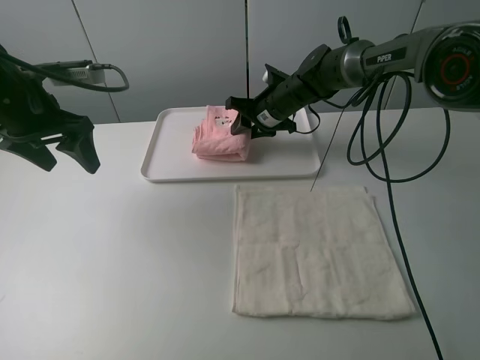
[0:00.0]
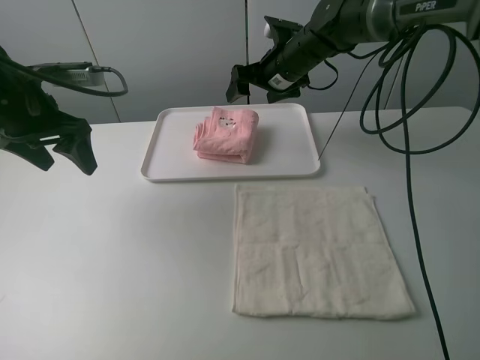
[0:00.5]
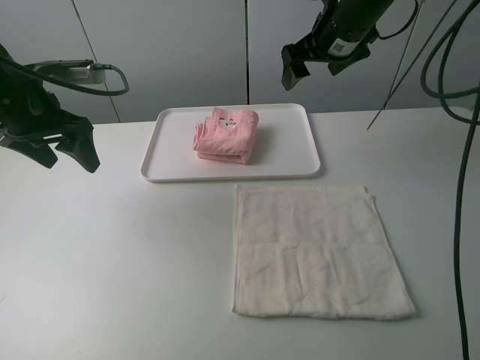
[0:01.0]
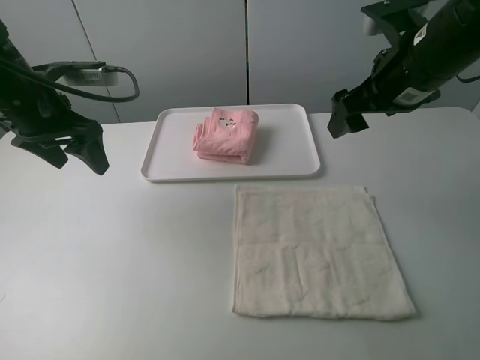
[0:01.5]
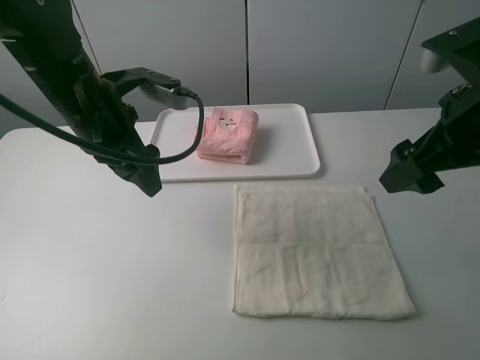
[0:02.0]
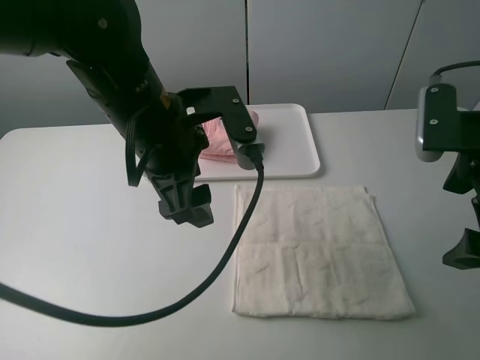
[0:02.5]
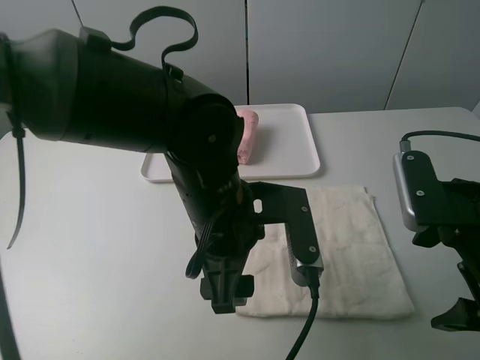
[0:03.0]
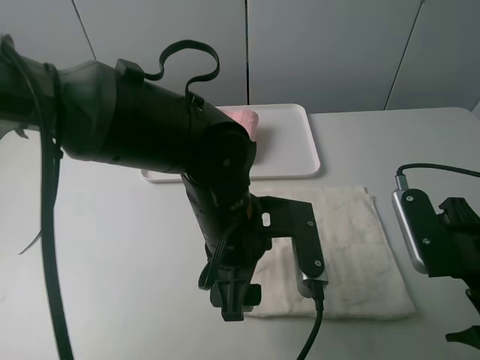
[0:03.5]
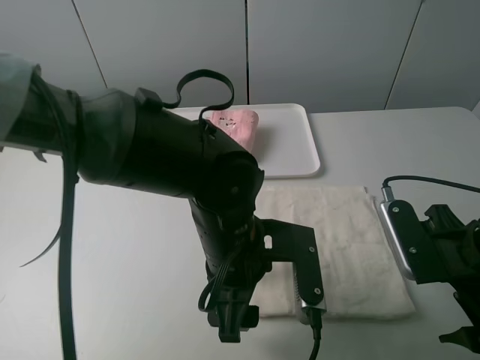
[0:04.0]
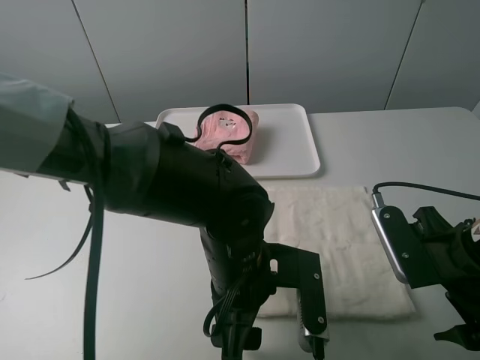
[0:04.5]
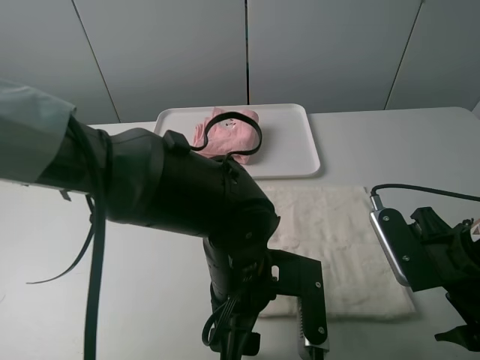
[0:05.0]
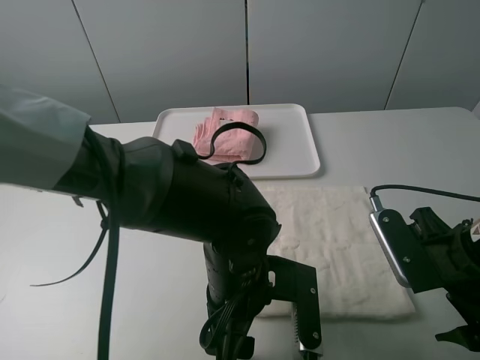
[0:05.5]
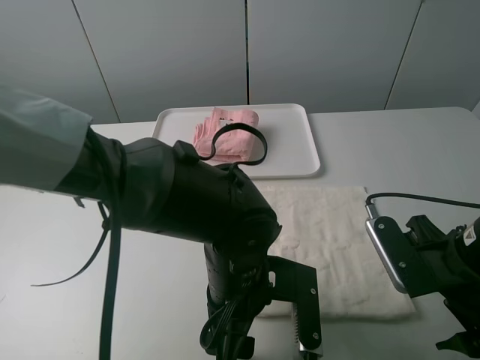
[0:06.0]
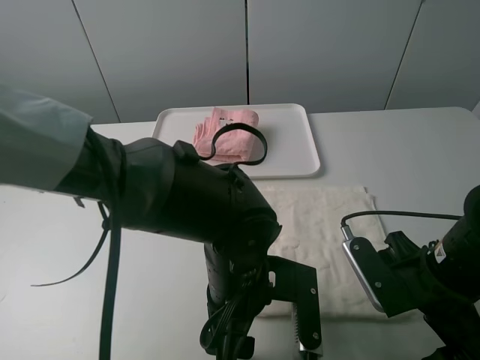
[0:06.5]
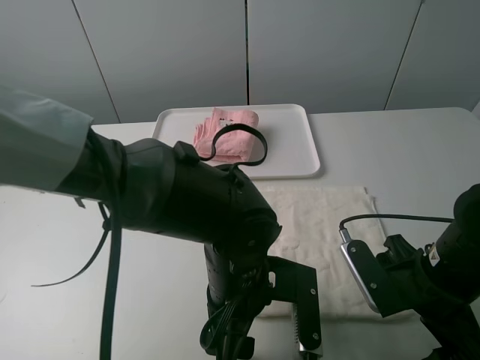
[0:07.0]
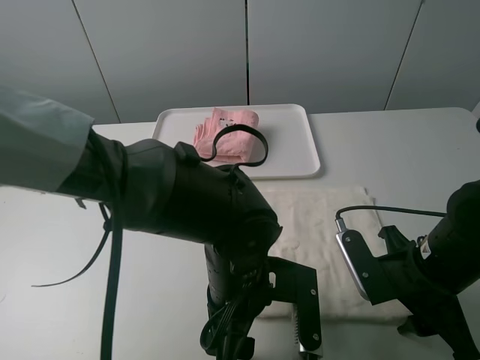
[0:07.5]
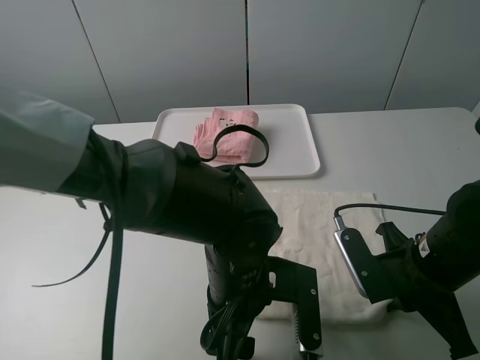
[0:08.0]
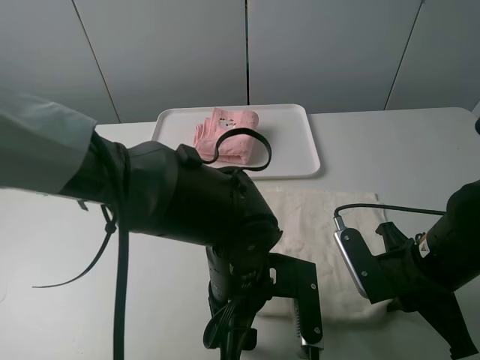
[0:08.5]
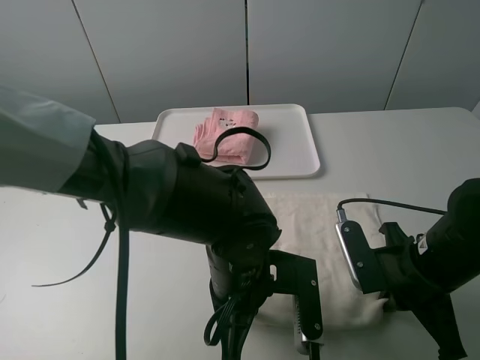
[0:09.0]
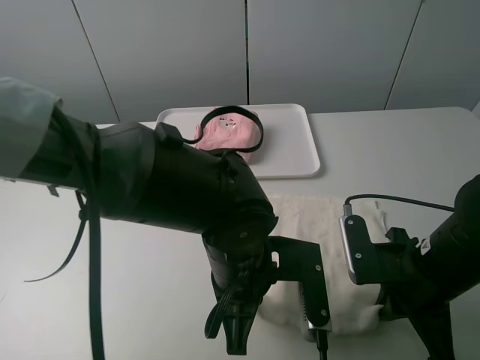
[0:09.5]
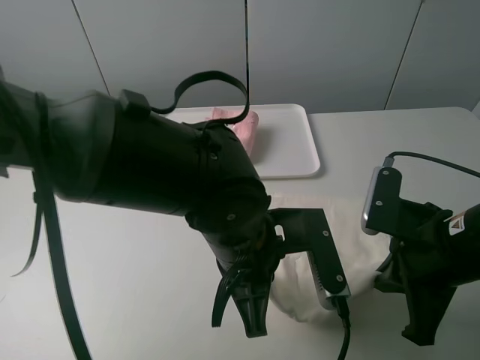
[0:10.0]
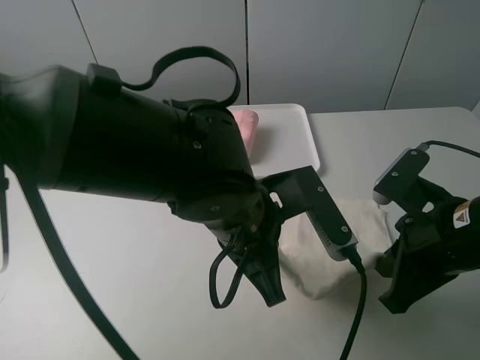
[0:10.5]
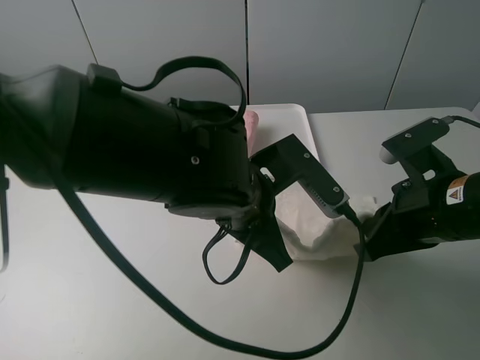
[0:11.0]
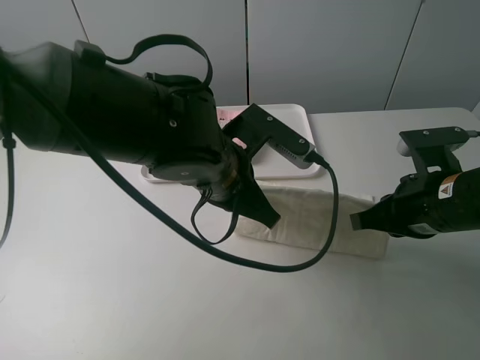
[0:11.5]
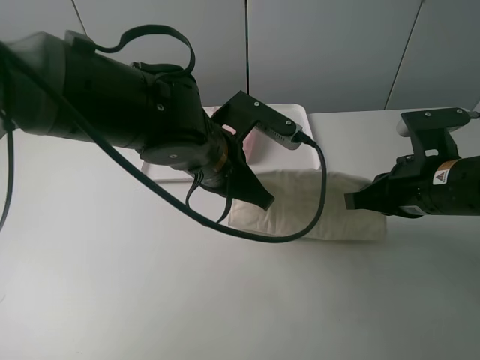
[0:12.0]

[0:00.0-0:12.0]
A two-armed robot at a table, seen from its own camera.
Task of the whole recording: fold one of the towels by two grippers and place it on the tray,then fold another towel by two grippers and place it on the folded towel.
Step, 0:00.5 to 0:09.0: Grasp the white towel with the left gripper.
0:00.0 to 0:02.0: The right gripper travels backward, upward and to the right by roughly 35 cm. The left gripper is displaced to the right by approximately 10 cm.
0:02.0 to 0:04.0: The left gripper shifts roughly 20 cm to the right, backward and downward. Meanwhile the right gripper moves downward and backward, some 15 cm.
0:06.0 to 0:08.0: The right gripper closes up.
0:08.0 to 0:10.0: The grippers both shift upward by about 5 cm. The left gripper closes.
0:10.0 to 0:12.0: The two grippers go roughly 10 cm forward.

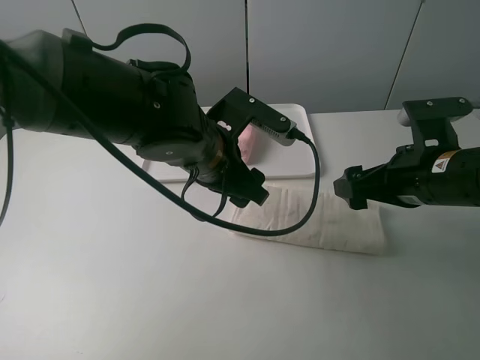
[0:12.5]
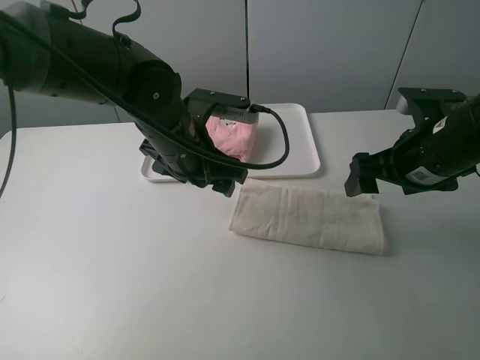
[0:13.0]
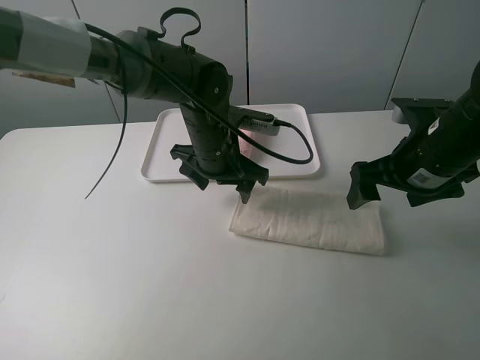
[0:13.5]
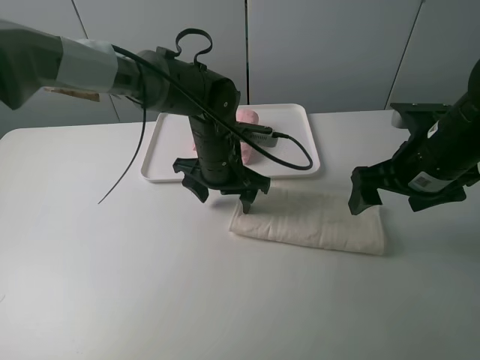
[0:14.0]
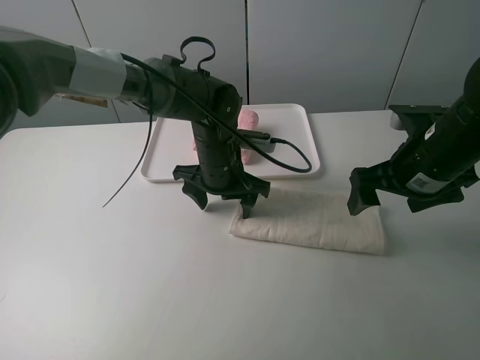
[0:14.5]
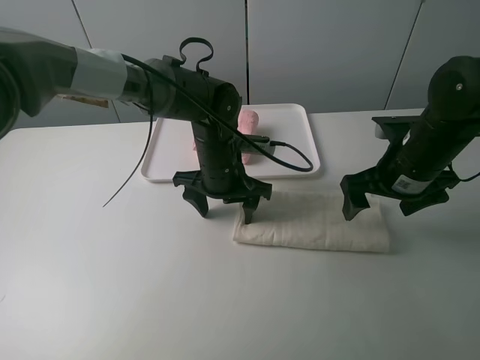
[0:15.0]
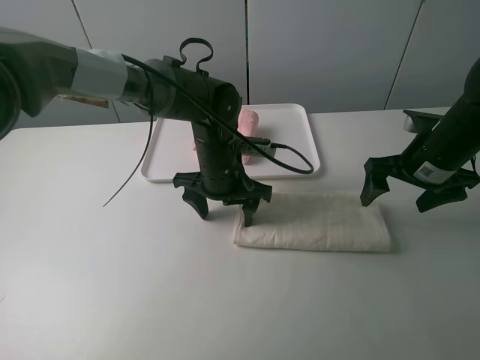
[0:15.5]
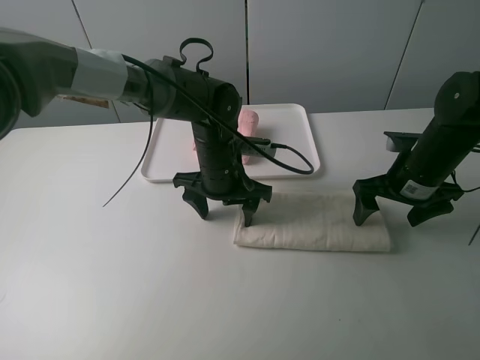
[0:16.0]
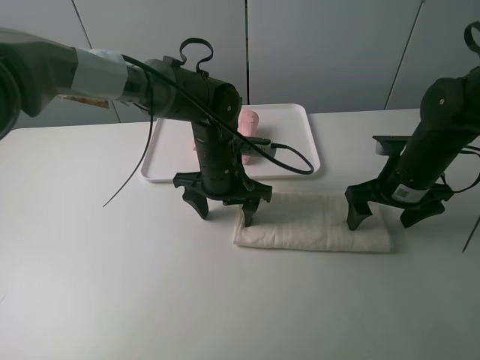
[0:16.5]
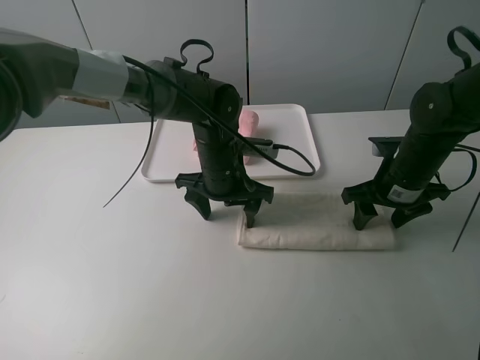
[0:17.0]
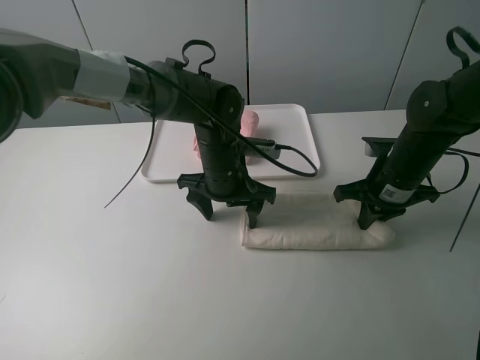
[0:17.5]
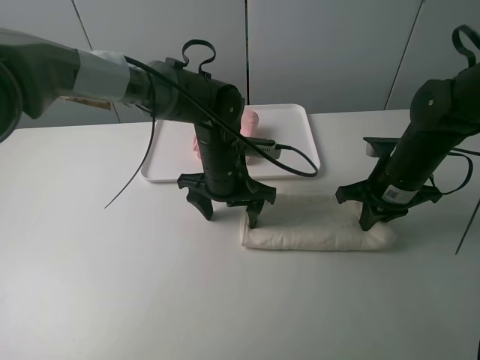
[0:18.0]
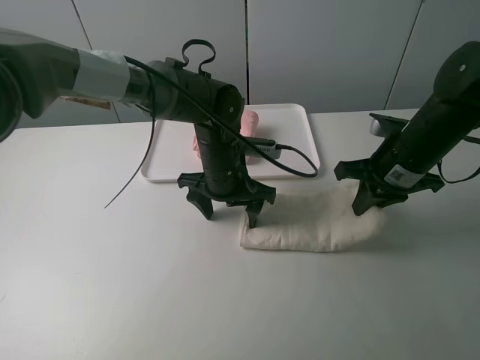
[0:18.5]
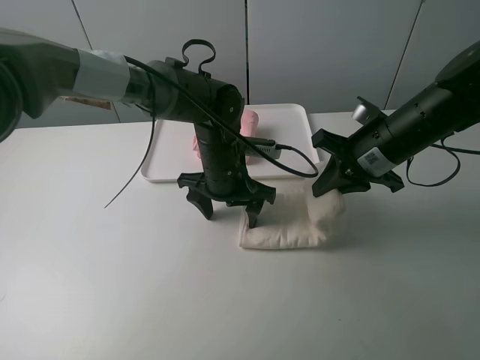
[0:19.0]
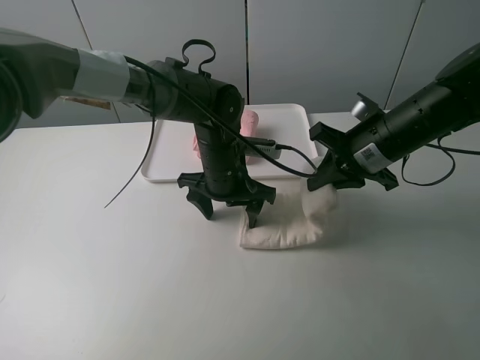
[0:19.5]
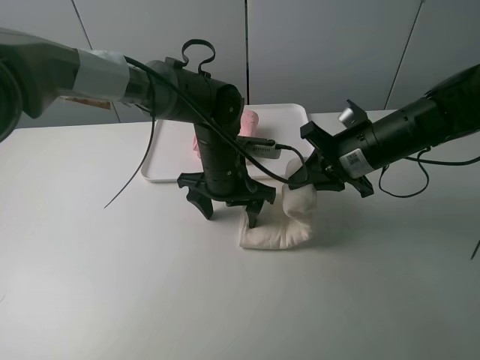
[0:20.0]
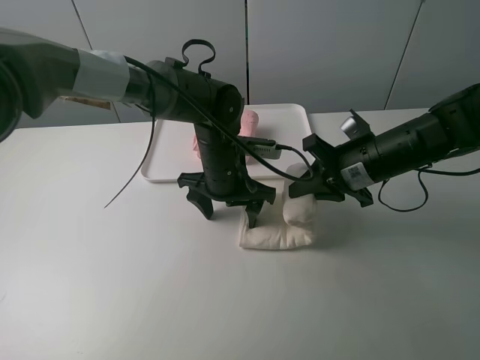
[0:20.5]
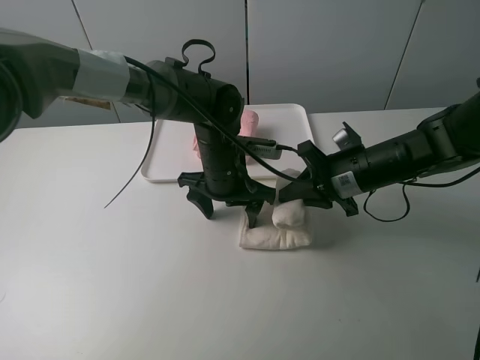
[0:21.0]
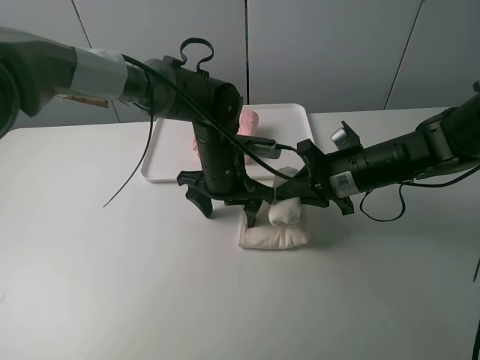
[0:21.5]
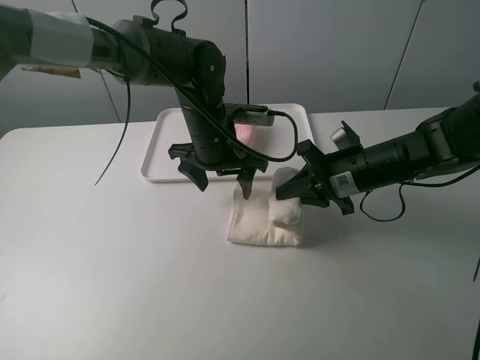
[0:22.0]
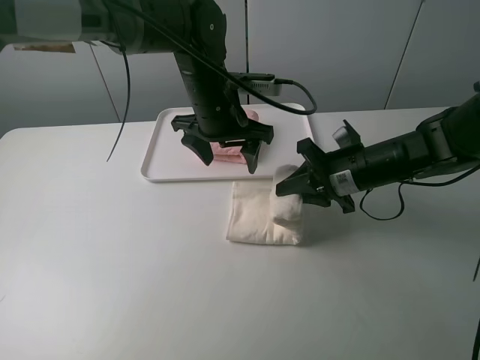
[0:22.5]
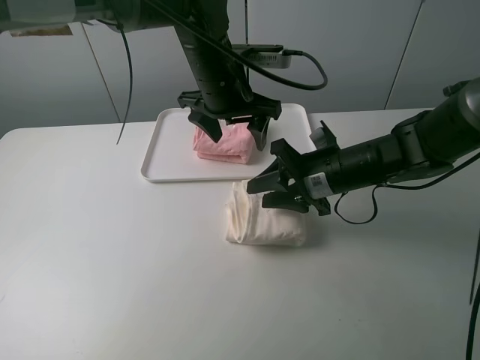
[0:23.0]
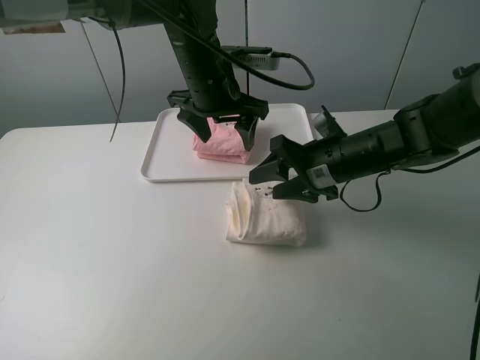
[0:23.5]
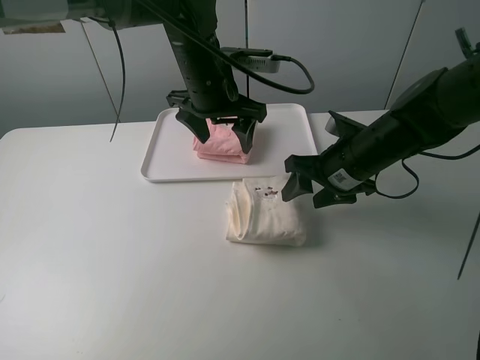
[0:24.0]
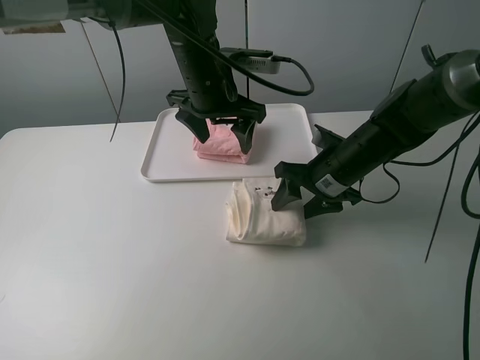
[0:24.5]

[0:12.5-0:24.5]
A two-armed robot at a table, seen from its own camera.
Task of the whole recording: fold one of the towels by two grippers and place it on the tray,then fold another towel by two grippers and place it on the folded towel.
Step, 0:13.0 to 0:14.5: Press the white towel with the left gripper.
Step, 0:15.0 to 0:17.5: Grasp the white towel with the right gripper.
Step, 0:18.0 to 0:23.5: Fold the white towel from right to left with right gripper.
0:12.5 to 0:14.5: The left gripper is displaced forward and downward by roughly 10 cm.
0:14.5 to 0:16.5: The right gripper is displaced downward by some 5 cm.
0:16.5 to 0:18.5: The right gripper closes its fingers.
0:20.5 to 0:22.5: The left gripper is displaced upward by approximately 10 cm.
0:22.5 to 0:24.5: The right gripper opens its fingers.

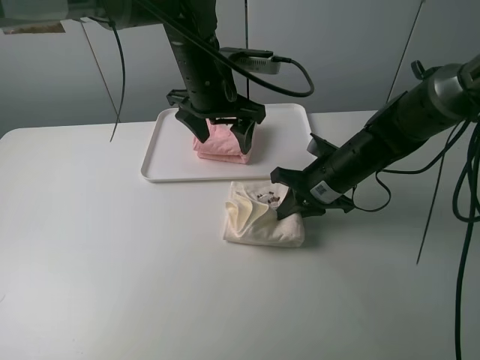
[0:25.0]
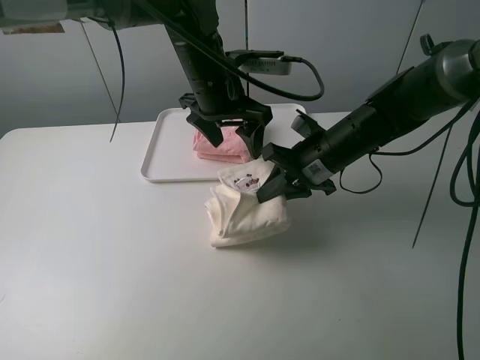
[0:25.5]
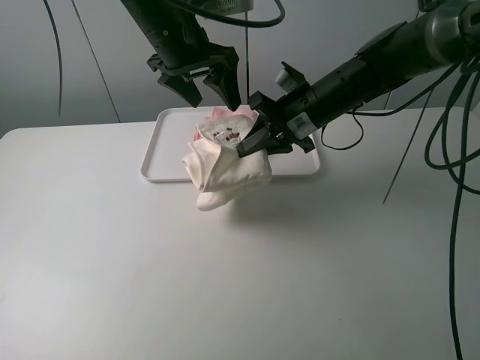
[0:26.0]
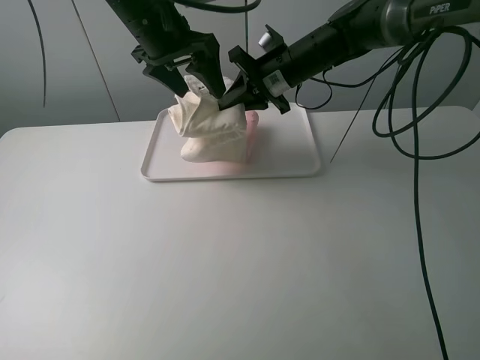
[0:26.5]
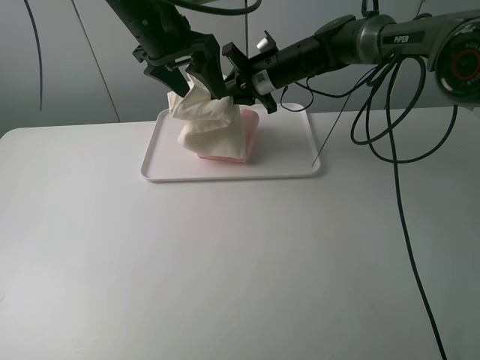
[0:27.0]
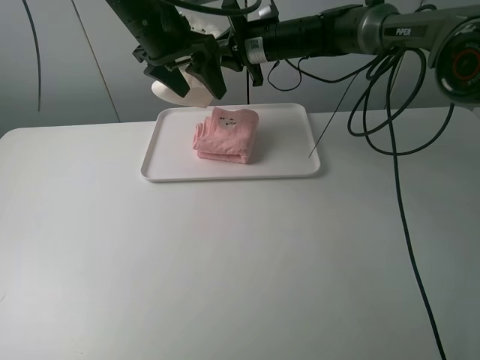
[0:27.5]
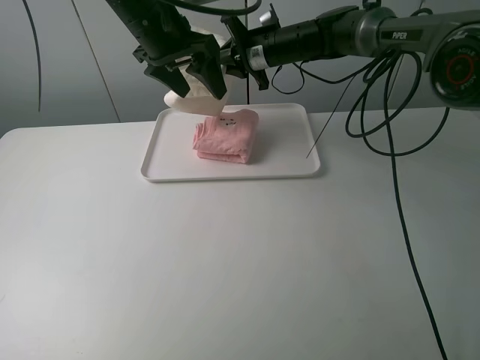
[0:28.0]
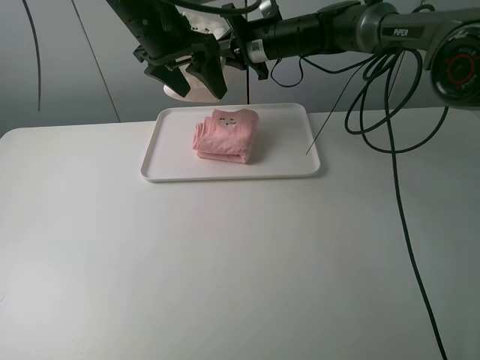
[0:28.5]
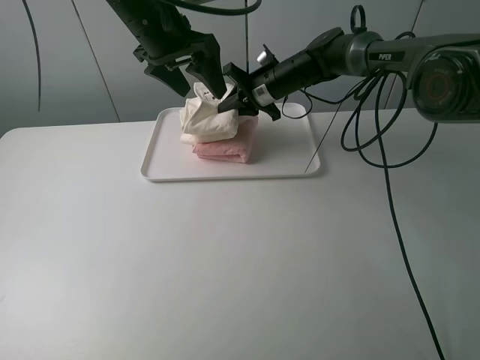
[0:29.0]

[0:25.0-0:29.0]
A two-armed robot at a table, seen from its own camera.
Task of the whole recording: fold one of the towels by two grippers and place it on the tray,then fold another towel by two grippers and place it on the folded towel.
0:25.0 to 0:27.0: The right gripper is displaced forward, upward and to the left by about 20 cm, while the left gripper travels to the left and upward by approximately 10 cm.
0:27.0 to 0:29.0: The grippers stay close to where they were, moving slightly.
